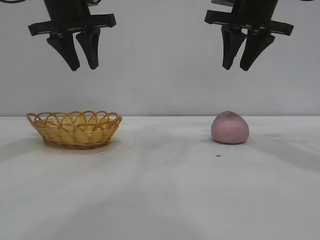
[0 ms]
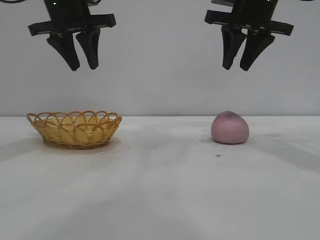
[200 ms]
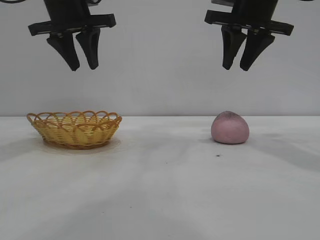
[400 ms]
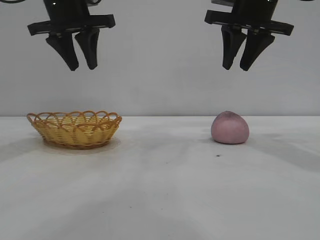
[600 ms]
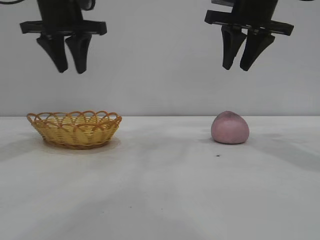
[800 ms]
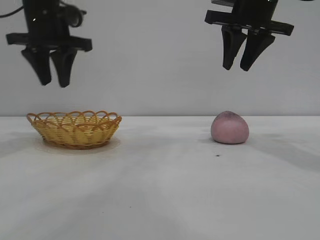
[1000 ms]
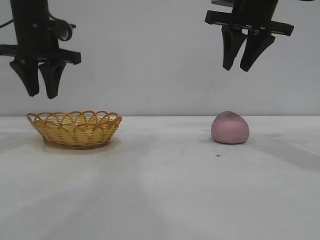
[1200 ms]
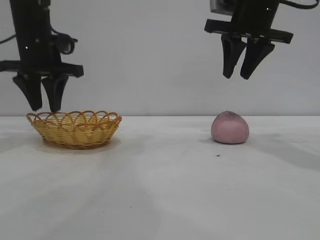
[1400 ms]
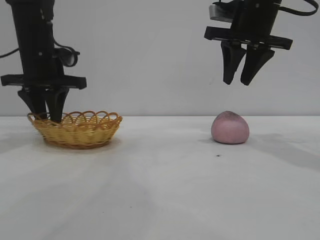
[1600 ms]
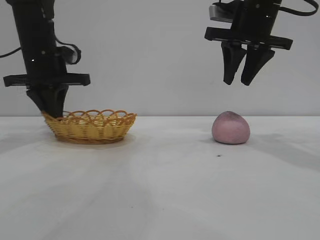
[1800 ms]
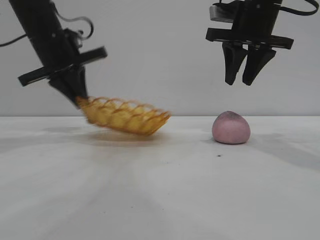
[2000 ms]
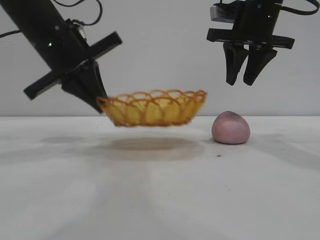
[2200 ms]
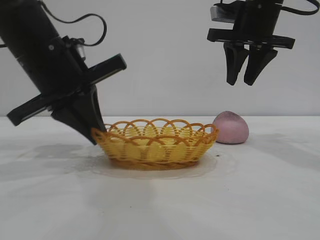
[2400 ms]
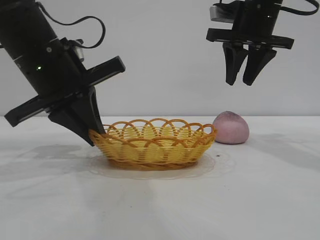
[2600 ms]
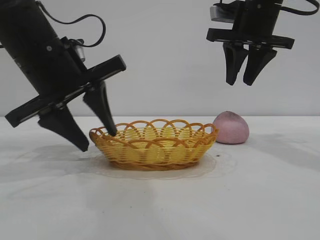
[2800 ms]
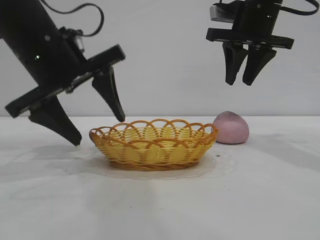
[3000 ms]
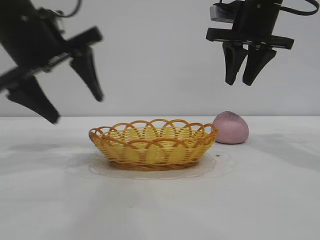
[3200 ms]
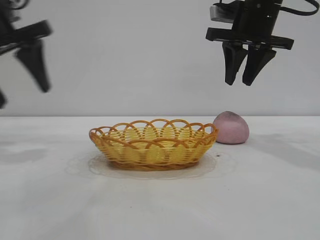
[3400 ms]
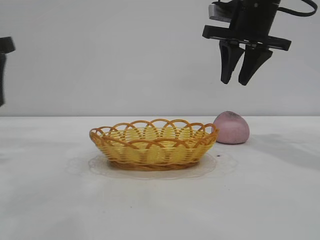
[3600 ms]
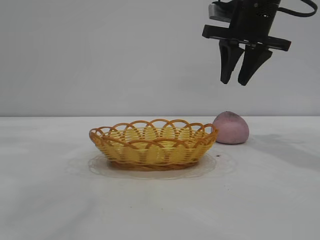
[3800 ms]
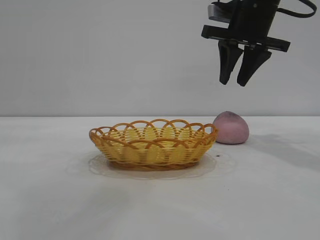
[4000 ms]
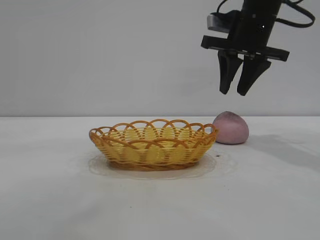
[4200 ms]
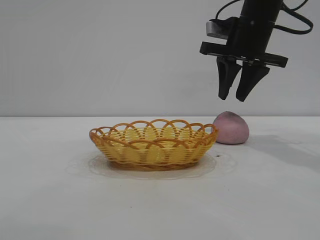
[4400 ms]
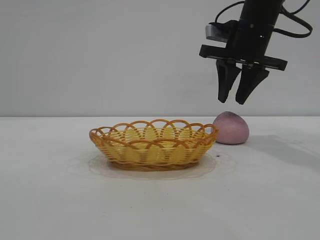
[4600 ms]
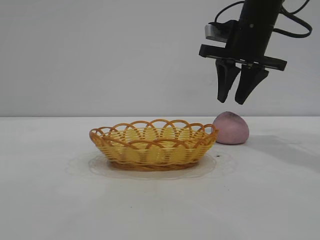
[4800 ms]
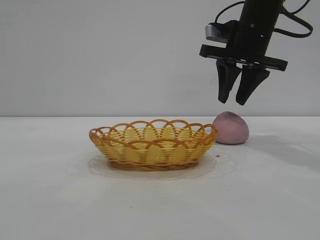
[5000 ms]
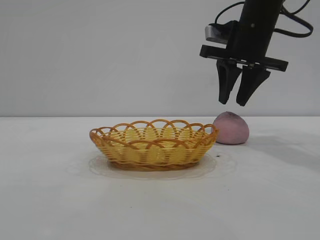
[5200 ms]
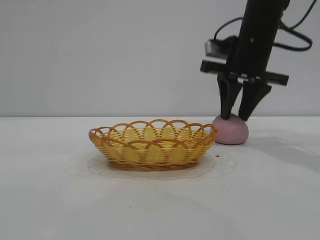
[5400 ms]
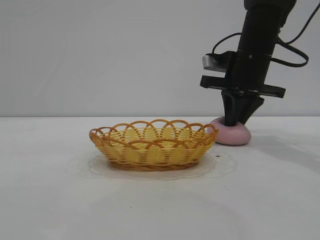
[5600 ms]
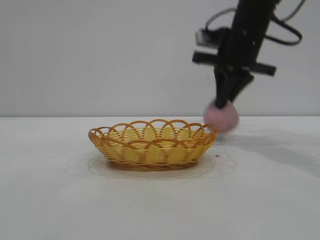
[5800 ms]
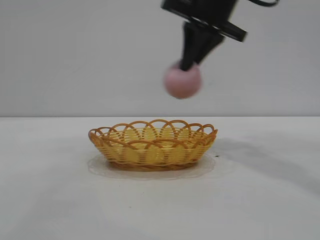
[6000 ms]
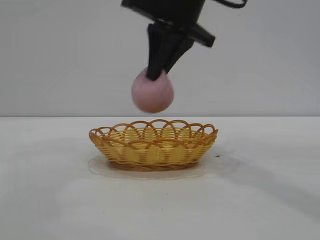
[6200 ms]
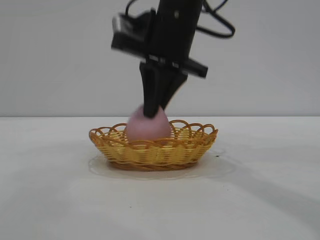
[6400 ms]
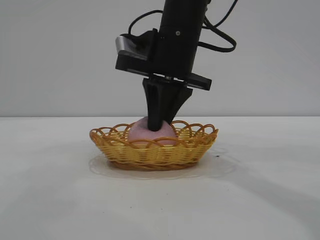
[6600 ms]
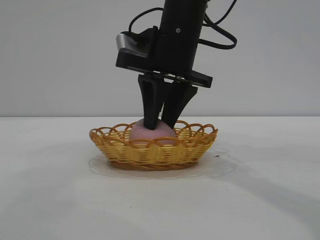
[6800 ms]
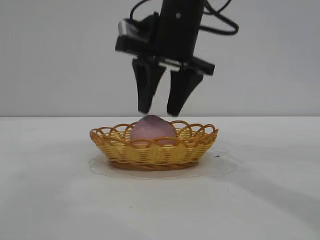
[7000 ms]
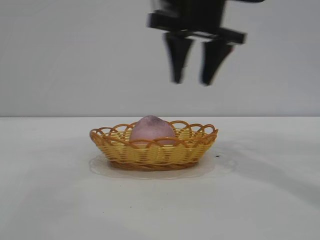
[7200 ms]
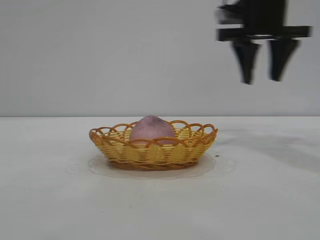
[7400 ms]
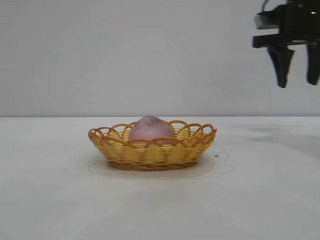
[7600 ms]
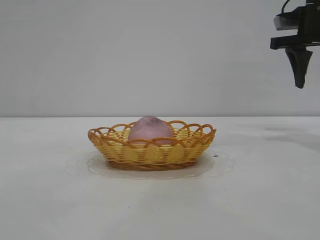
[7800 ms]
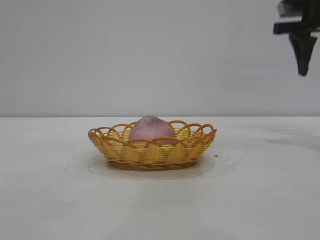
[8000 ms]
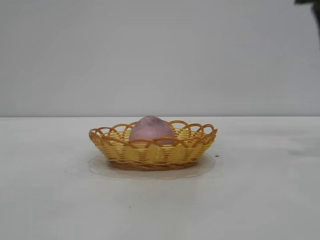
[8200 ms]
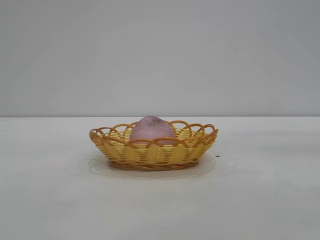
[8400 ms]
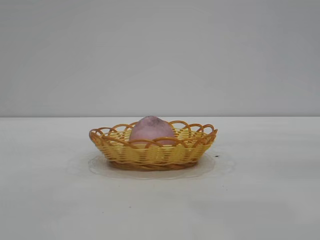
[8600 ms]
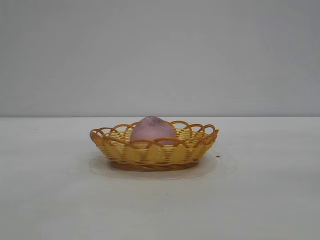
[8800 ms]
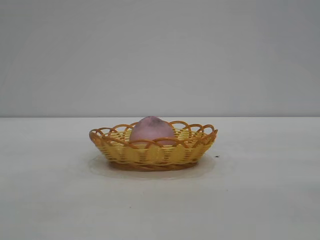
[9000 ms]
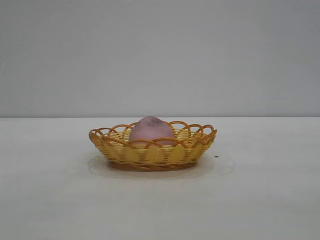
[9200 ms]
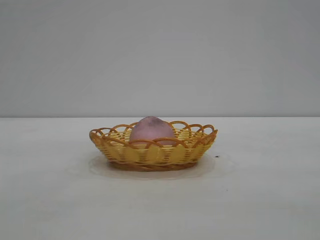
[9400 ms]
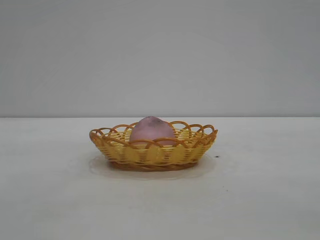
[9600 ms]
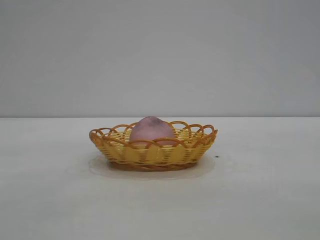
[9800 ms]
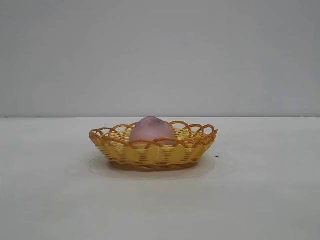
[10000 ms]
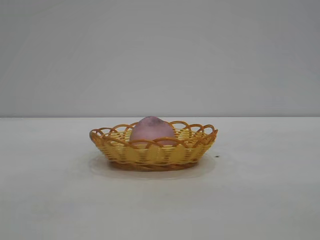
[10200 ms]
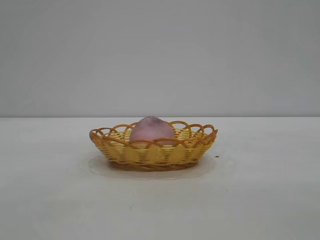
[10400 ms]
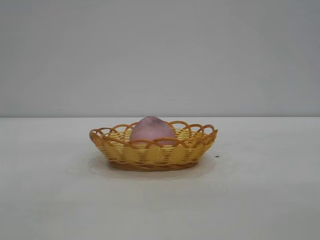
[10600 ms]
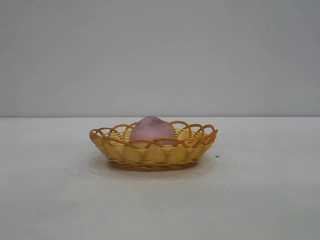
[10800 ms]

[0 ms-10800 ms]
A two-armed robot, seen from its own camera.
Task of the whole recording: pick up the peach and put it into the basket.
Step, 0 ms to 3000 ms: Move the basket to the center of view.
Step, 3200 ms to 5800 ms: Pick up the peach.
Step, 6000 ms to 7000 ms: place the peach into the basket.

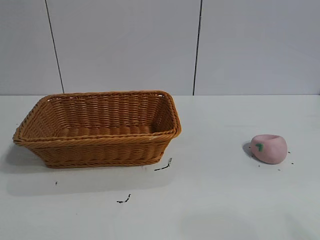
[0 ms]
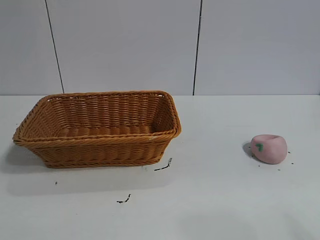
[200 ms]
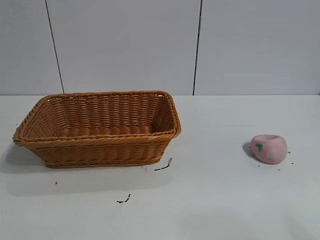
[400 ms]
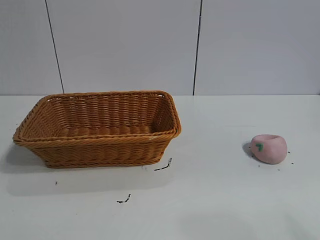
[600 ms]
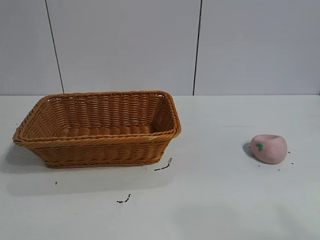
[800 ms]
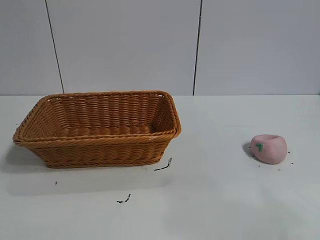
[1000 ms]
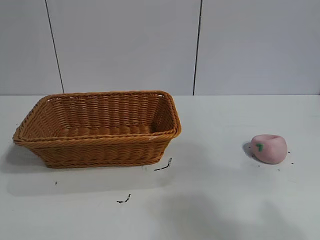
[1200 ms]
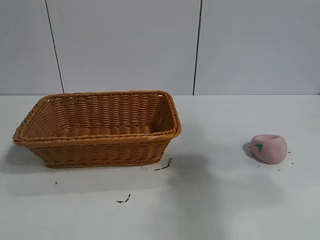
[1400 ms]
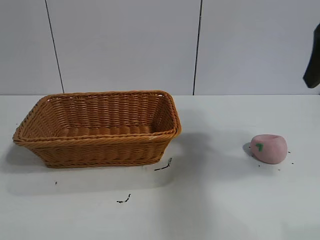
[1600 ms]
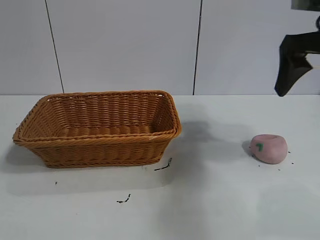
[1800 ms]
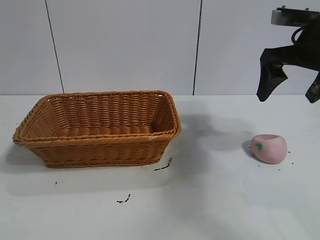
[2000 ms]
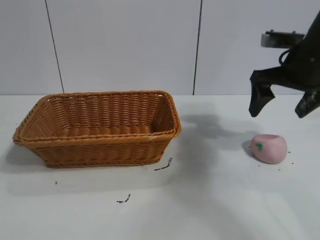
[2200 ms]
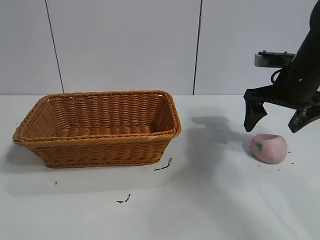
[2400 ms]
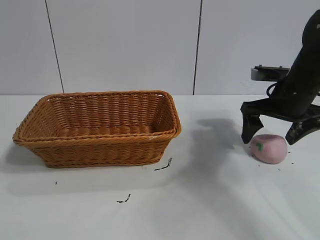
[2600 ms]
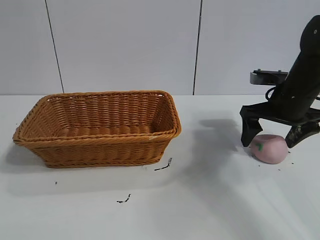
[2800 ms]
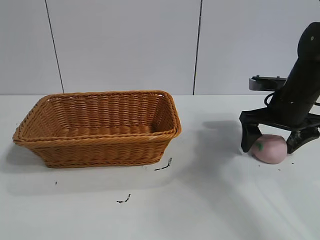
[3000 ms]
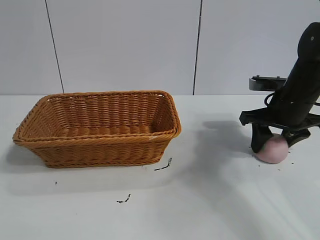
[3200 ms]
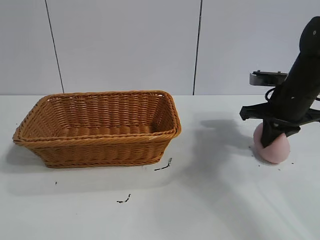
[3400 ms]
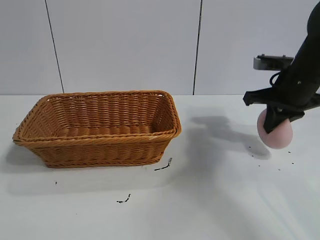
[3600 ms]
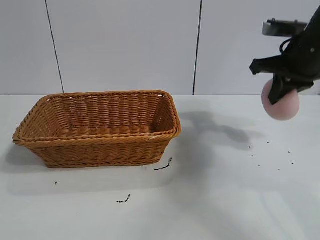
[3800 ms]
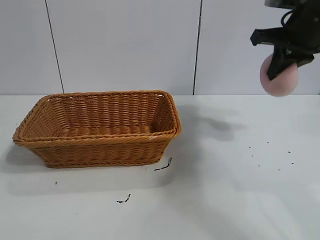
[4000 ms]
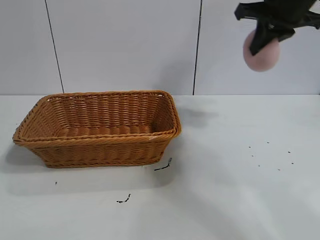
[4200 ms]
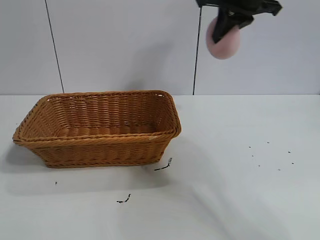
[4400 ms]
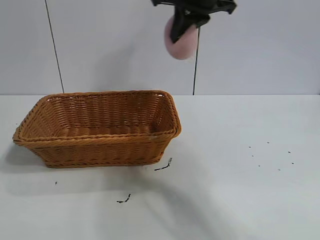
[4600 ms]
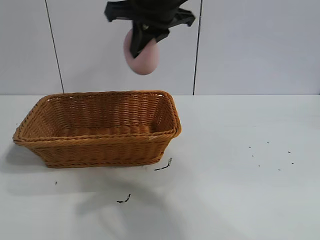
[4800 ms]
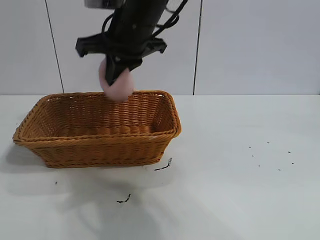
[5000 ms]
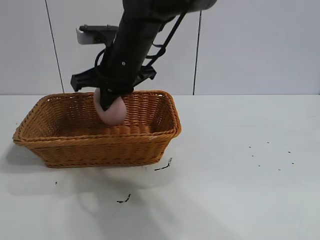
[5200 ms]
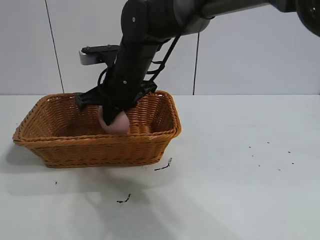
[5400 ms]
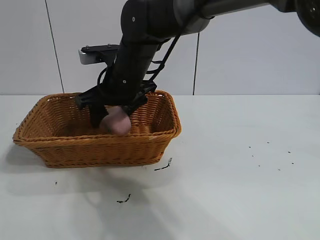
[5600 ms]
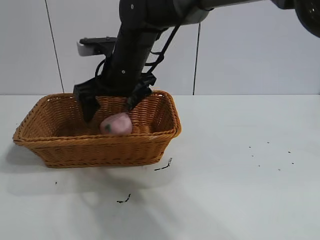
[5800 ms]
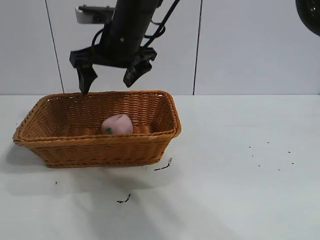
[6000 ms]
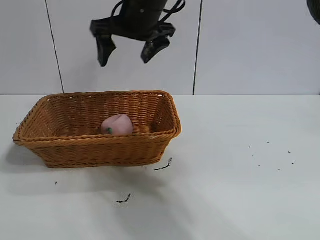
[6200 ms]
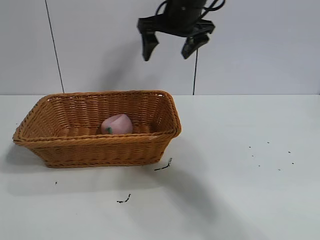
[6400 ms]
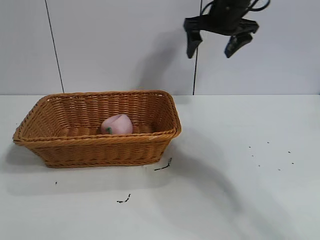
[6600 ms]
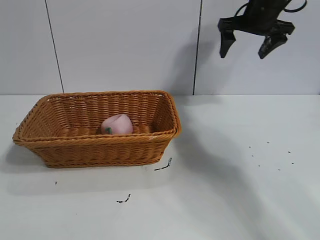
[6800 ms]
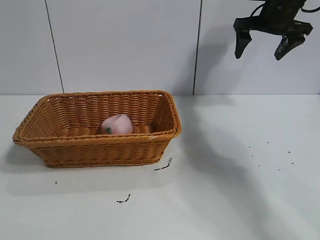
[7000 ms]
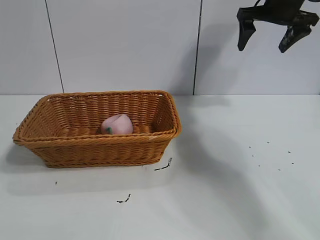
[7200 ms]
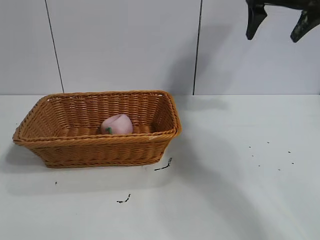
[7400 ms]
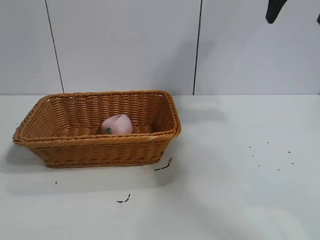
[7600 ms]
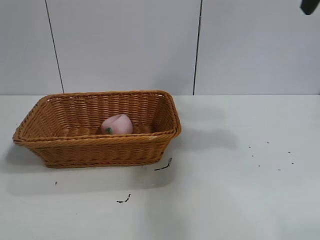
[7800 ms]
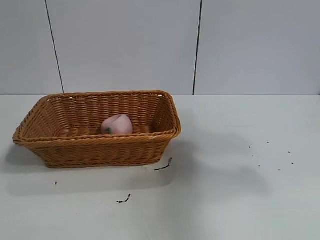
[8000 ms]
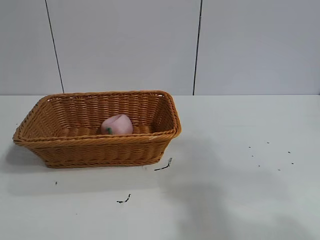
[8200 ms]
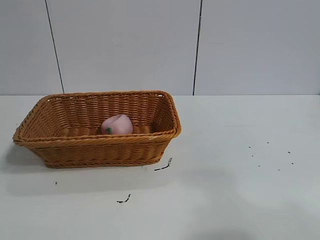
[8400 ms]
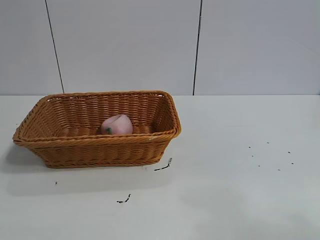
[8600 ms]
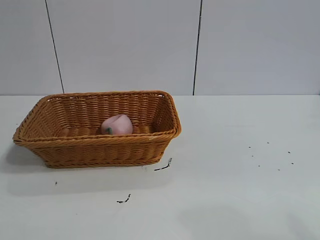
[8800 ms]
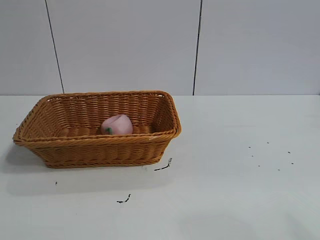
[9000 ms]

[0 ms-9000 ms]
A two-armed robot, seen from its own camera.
Task of the whole recording: pick up the peach and put it into the basket.
Step, 800 ms to 3200 ms: Grasp the peach with right gripper.
Step, 3600 ms to 5600 ms: Place the peach in the basket with right gripper.

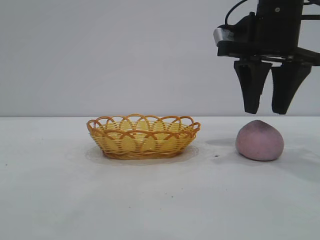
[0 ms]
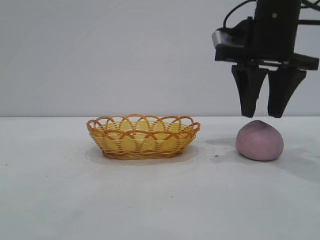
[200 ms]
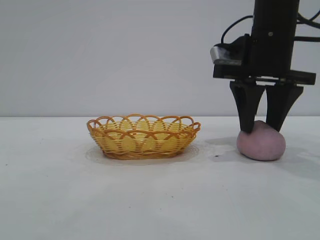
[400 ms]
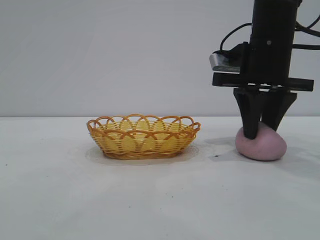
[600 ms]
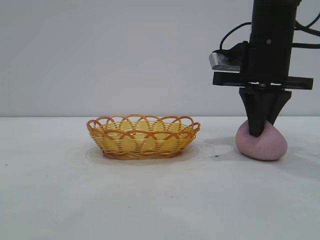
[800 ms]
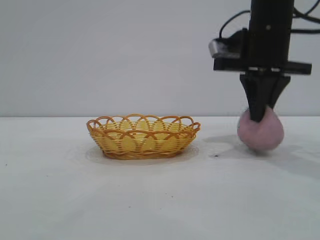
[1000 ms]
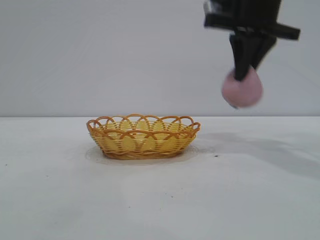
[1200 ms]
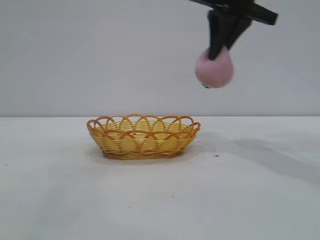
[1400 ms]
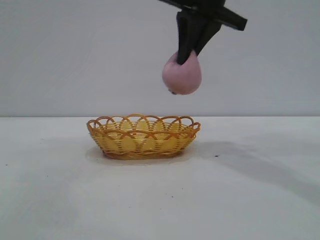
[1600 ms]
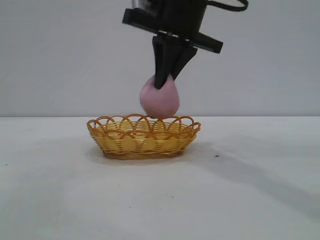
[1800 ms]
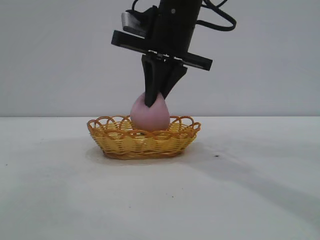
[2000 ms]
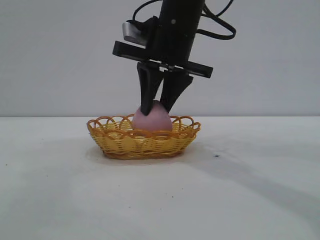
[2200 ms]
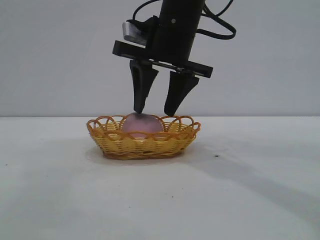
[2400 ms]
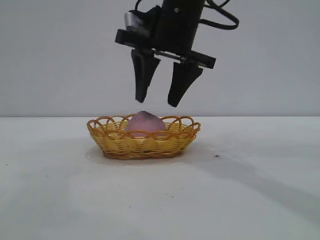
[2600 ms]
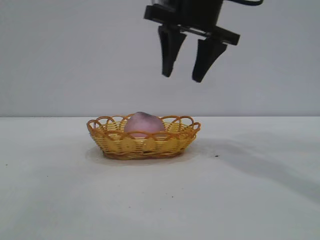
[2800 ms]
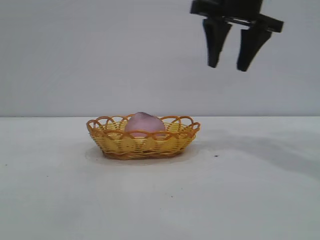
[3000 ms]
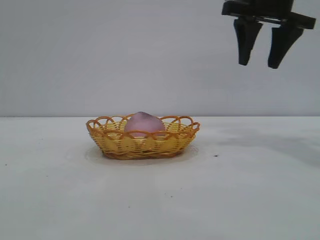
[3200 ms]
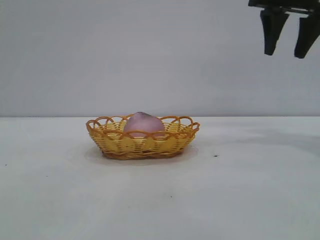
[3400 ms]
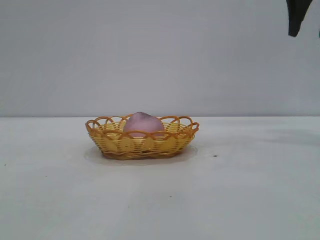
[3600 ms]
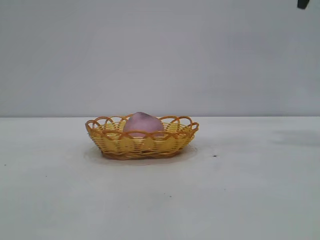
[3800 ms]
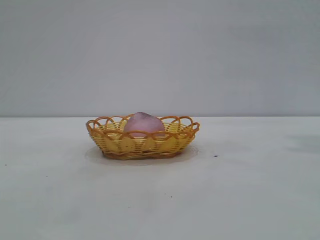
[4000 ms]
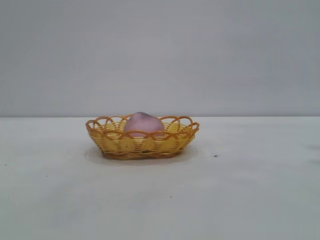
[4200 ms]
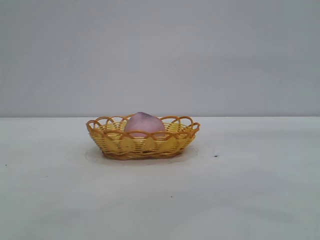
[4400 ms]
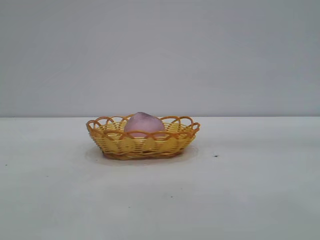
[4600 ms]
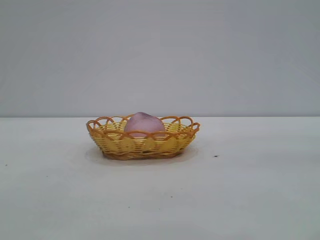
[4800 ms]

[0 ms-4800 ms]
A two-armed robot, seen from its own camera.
Task of the whole recording: pick up the peach and put it into the basket.
Step, 1200 ms to 2800 ms: place the peach into the basket.
